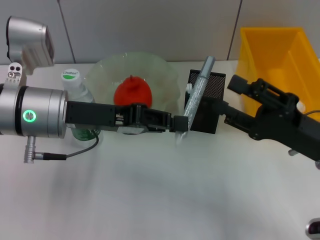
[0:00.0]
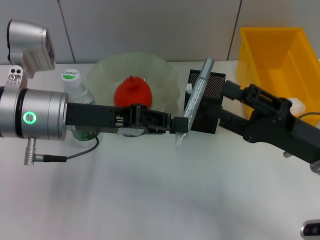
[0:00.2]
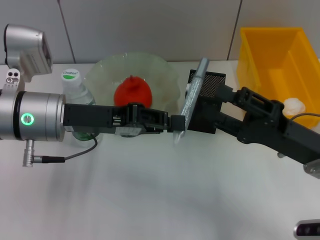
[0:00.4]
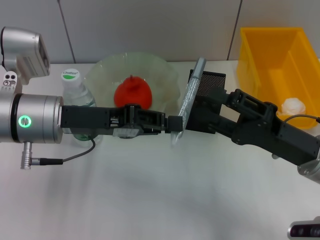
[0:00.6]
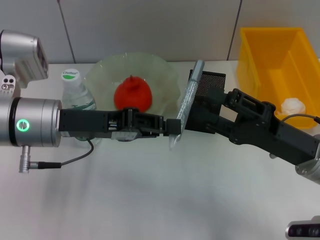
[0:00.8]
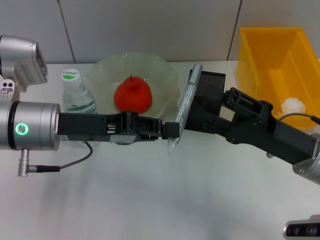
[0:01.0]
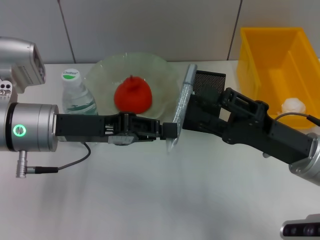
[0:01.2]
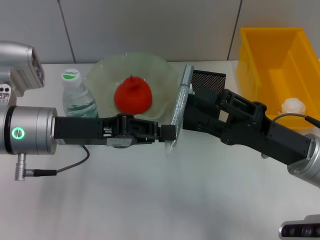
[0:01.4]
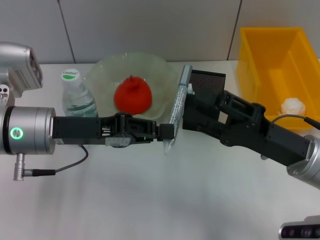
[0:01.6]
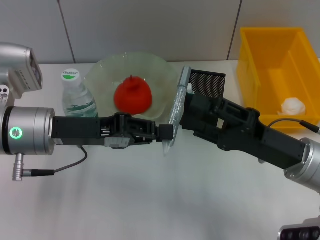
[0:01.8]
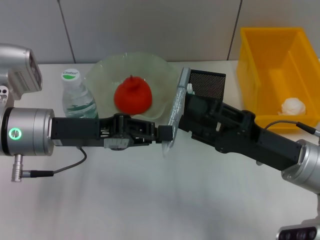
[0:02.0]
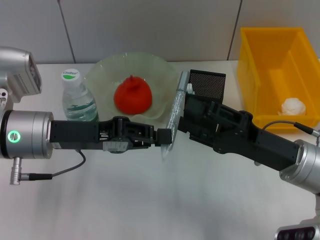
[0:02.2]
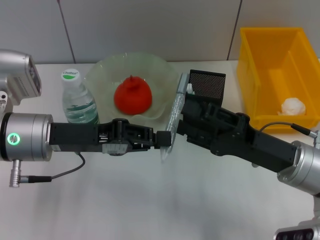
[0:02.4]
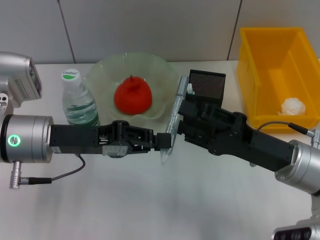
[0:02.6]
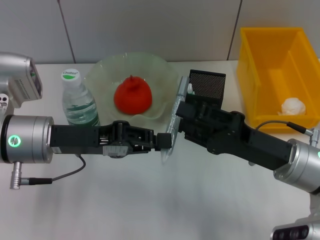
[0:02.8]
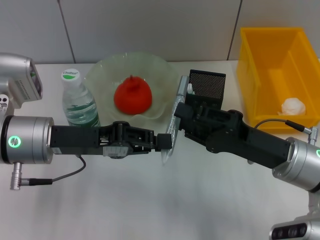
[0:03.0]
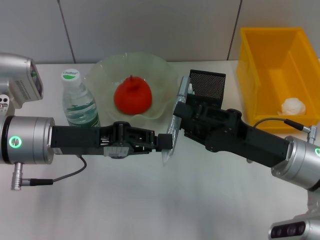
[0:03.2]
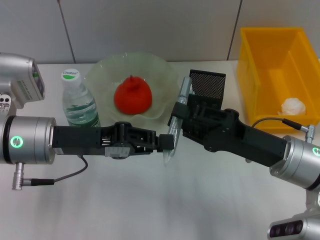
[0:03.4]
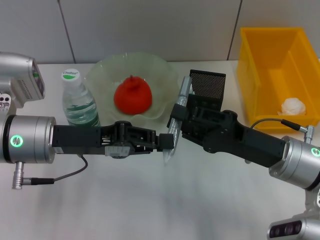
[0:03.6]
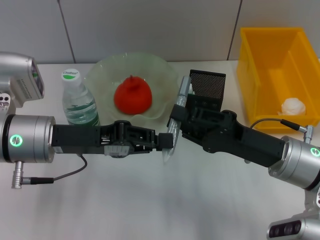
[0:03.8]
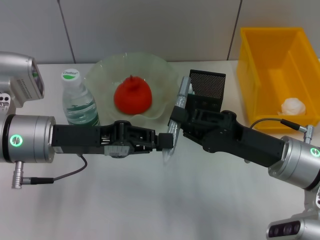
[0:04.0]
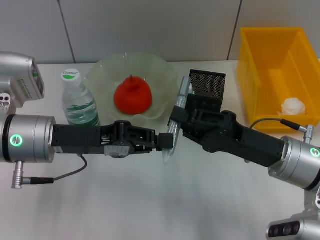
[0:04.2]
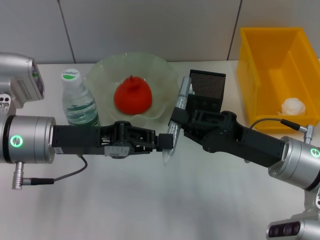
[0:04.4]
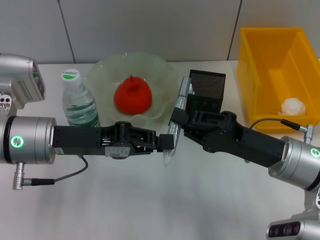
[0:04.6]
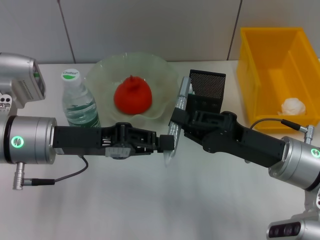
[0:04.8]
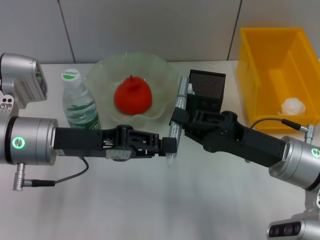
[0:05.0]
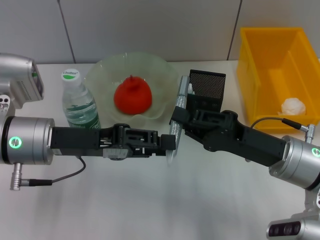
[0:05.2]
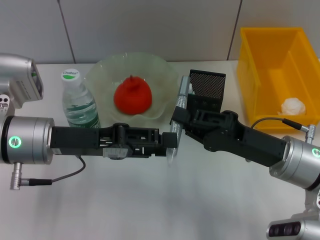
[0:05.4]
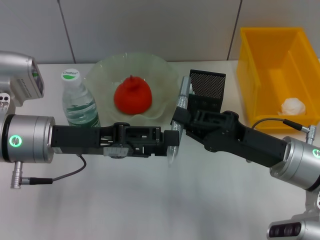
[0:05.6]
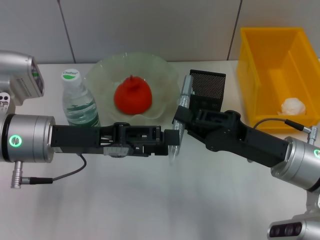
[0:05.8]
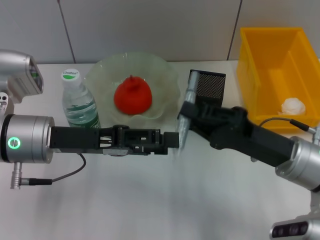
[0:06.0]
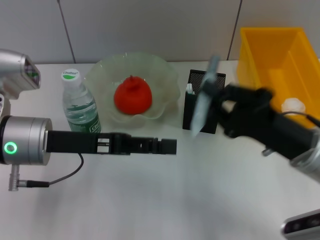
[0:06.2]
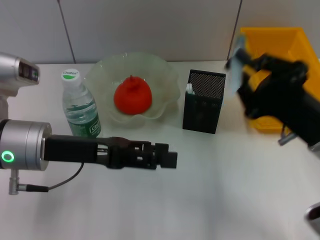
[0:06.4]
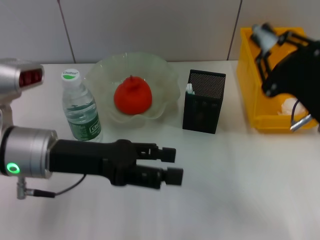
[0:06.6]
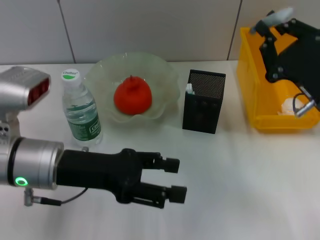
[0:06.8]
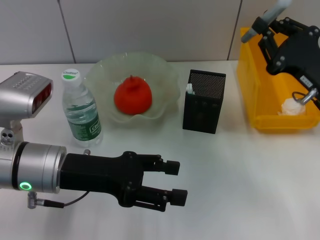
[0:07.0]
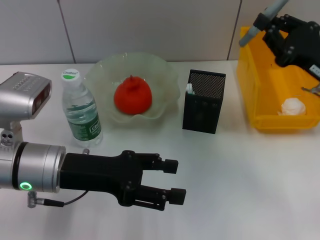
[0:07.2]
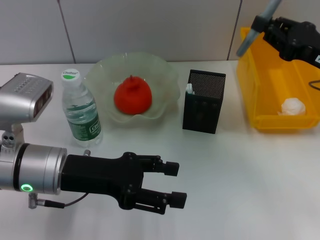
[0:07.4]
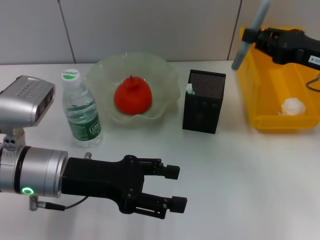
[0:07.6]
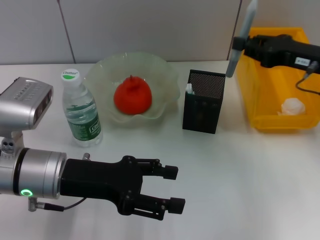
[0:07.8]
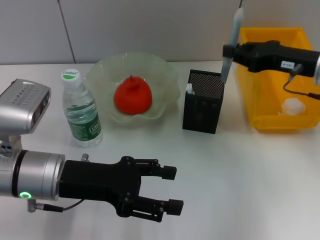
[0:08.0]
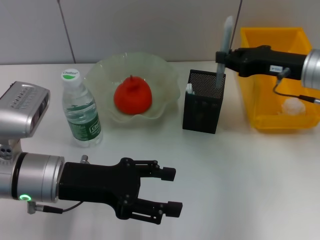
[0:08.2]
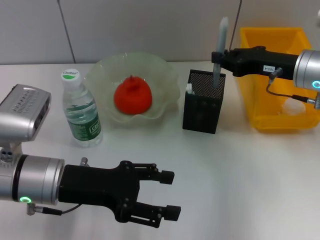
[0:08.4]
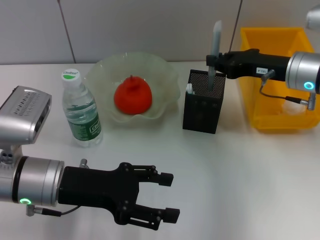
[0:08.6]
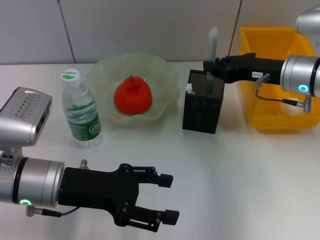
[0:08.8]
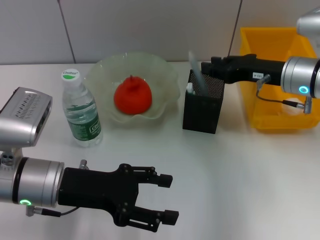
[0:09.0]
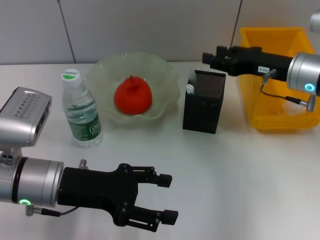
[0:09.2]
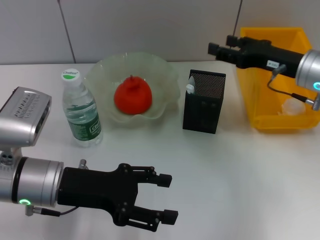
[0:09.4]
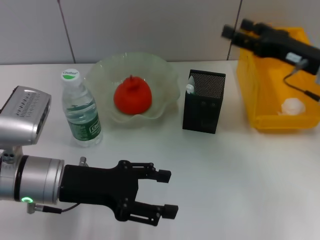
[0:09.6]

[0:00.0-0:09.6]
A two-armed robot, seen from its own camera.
Step, 0.0 to 5.8 s: Pass the gray glue from the left hand to the right hand.
Step, 6.0 to 9.2 s: Place the gray glue into the pen holder with the right hand.
1.6 to 3.2 s: The right gripper closes.
3.2 to 4.8 s: The right gripper closes.
4.8 to 6.4 s: The left gripper opens its fingers.
6.4 to 8.0 s: The right gripper moves forward and upward, about 10 cm.
8.0 to 9.6 s: The right gripper opens.

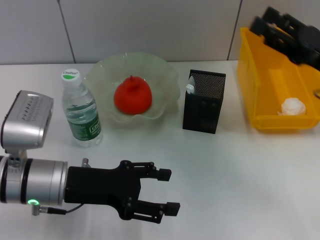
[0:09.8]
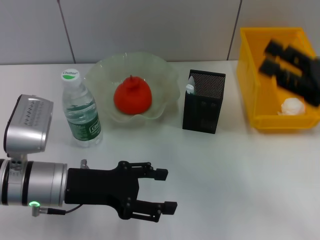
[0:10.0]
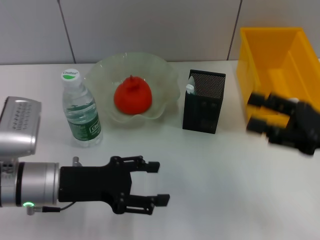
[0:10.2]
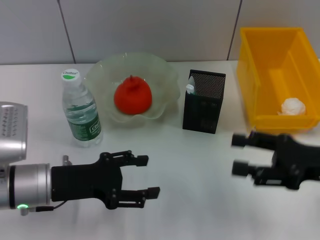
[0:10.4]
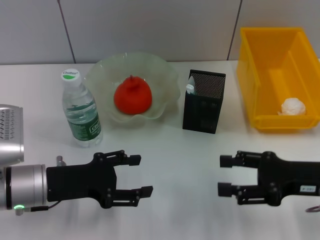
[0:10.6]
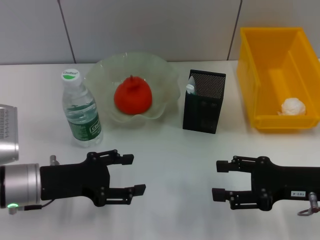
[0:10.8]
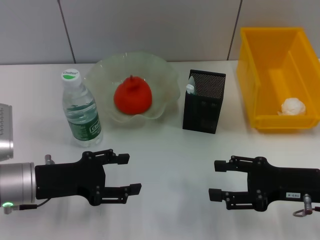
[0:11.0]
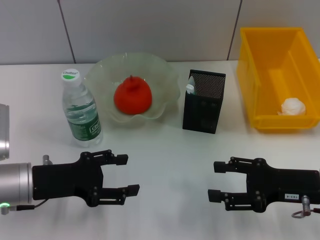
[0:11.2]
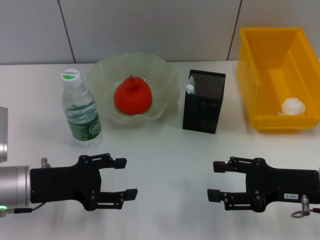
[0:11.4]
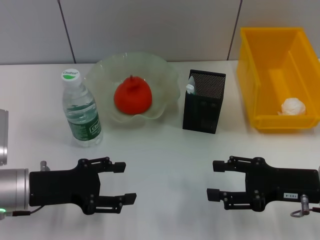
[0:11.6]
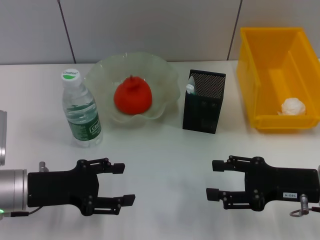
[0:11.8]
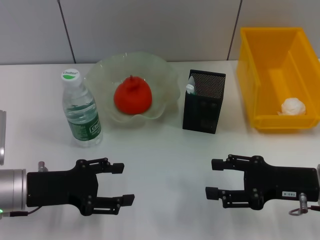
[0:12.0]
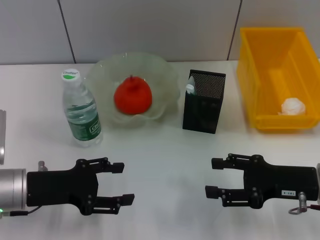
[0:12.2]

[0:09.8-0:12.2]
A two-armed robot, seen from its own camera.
9.8 to 11.0 s: The left gripper ends up about 5 cm from where it was, while the right gripper heads downward and backward, covering approximately 10 cm.
11.0 to 12.2 s: Both grippers stay about where they are.

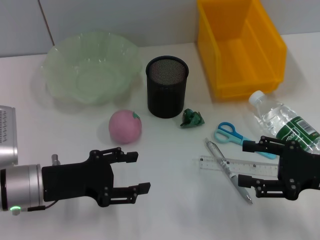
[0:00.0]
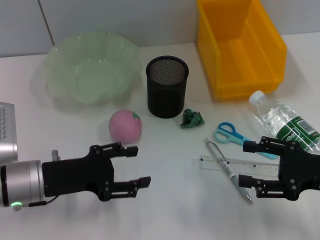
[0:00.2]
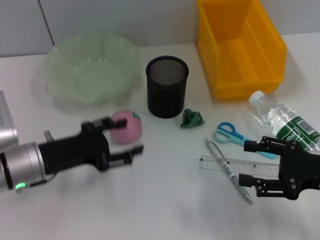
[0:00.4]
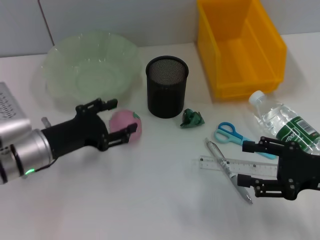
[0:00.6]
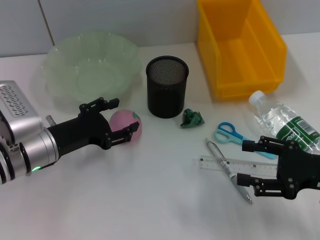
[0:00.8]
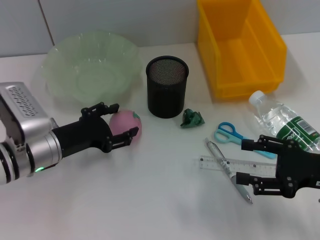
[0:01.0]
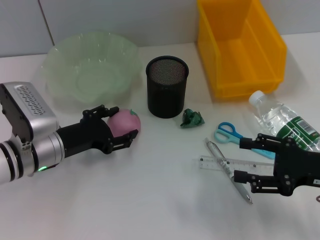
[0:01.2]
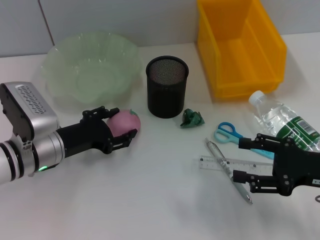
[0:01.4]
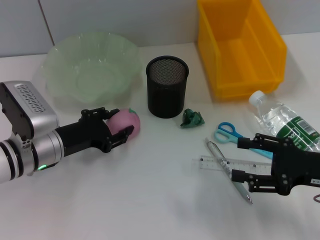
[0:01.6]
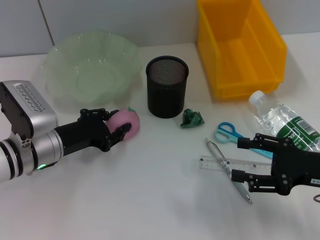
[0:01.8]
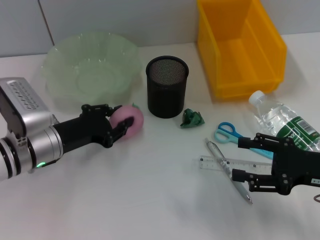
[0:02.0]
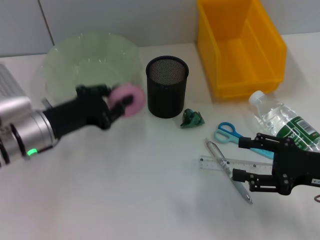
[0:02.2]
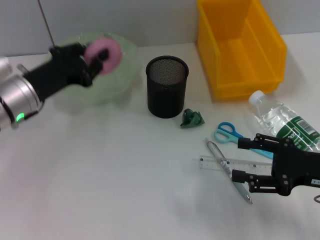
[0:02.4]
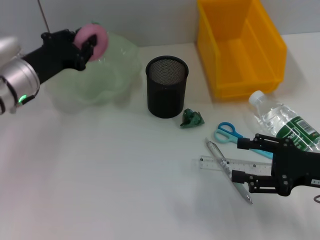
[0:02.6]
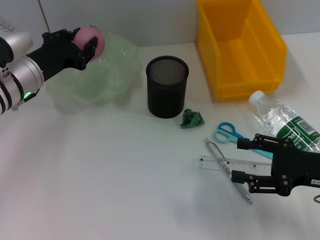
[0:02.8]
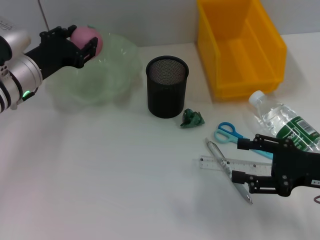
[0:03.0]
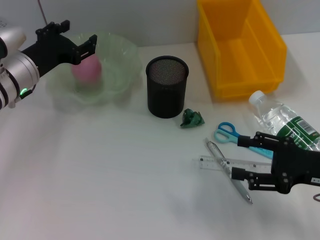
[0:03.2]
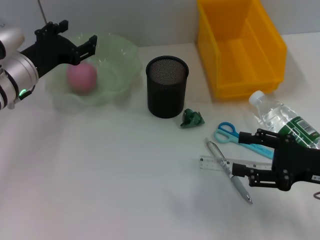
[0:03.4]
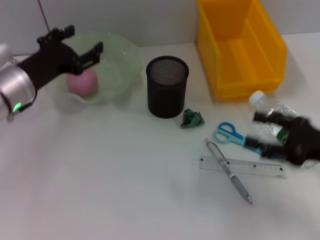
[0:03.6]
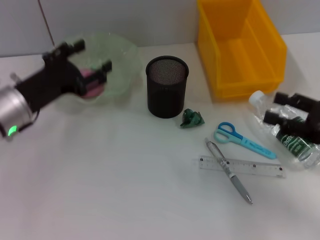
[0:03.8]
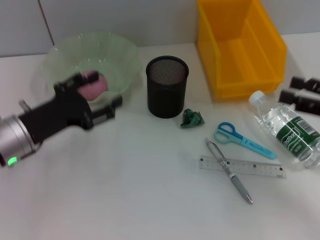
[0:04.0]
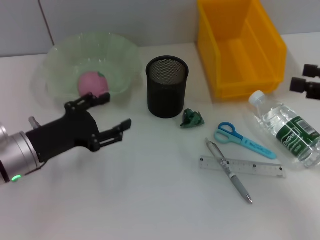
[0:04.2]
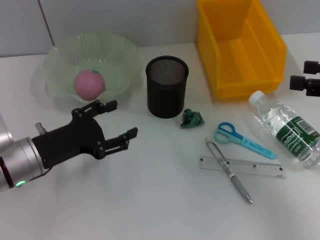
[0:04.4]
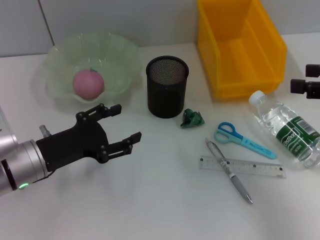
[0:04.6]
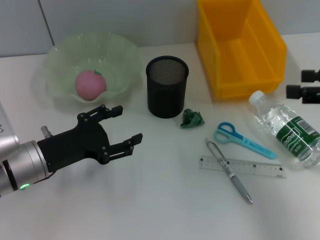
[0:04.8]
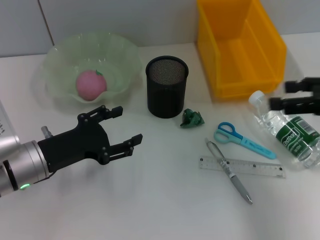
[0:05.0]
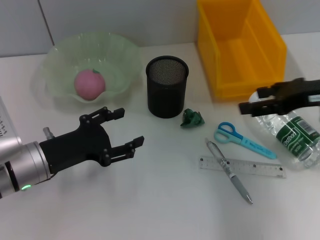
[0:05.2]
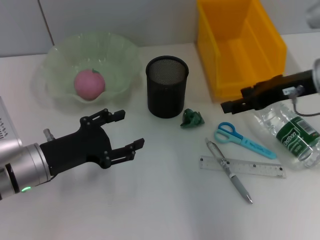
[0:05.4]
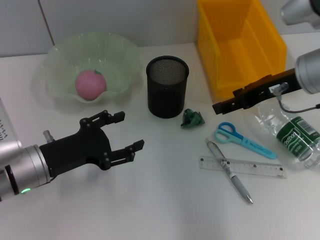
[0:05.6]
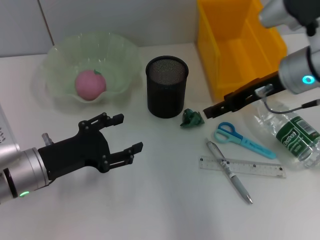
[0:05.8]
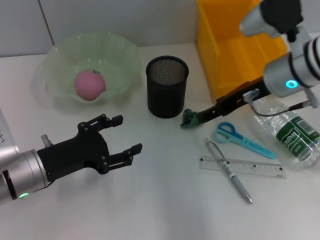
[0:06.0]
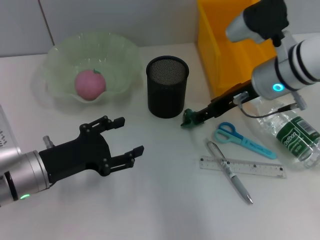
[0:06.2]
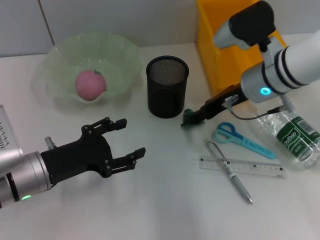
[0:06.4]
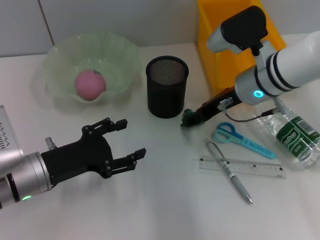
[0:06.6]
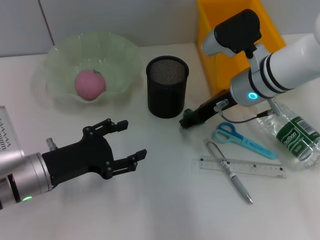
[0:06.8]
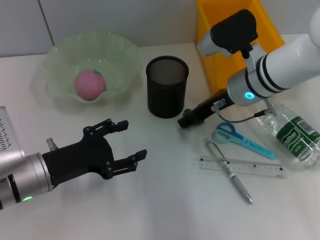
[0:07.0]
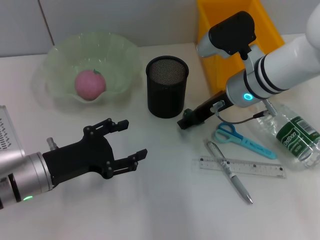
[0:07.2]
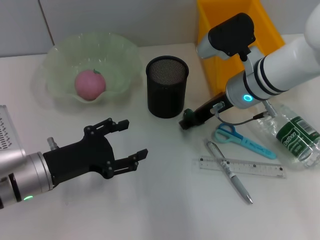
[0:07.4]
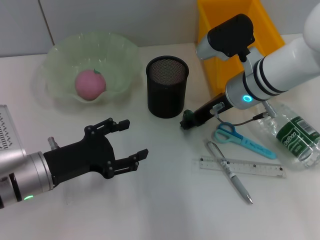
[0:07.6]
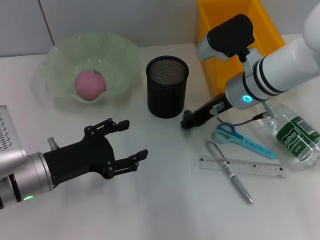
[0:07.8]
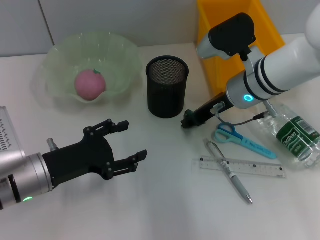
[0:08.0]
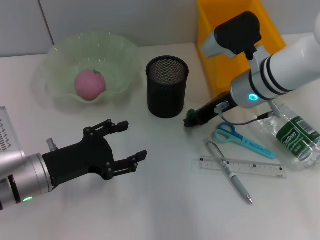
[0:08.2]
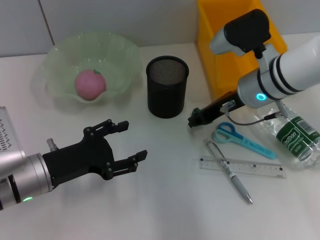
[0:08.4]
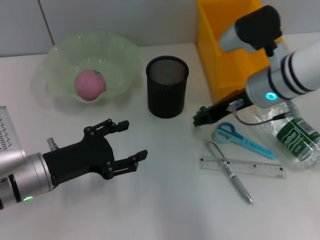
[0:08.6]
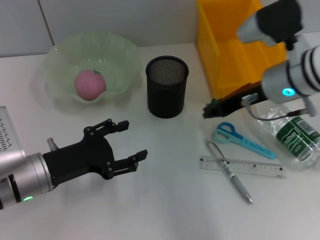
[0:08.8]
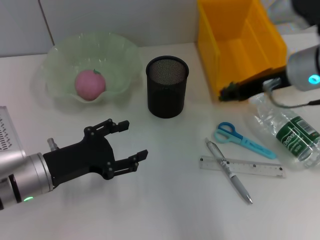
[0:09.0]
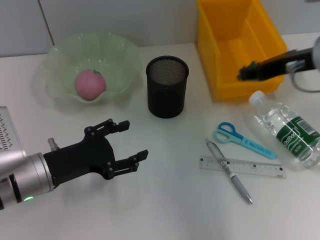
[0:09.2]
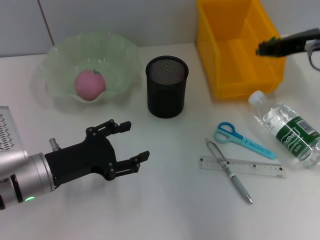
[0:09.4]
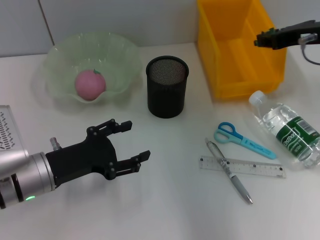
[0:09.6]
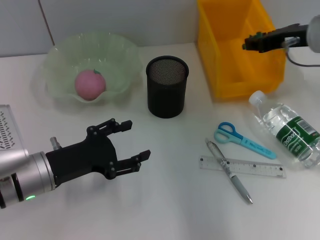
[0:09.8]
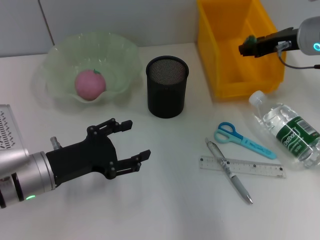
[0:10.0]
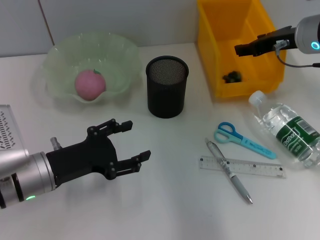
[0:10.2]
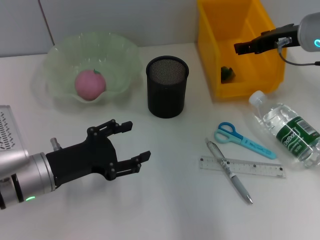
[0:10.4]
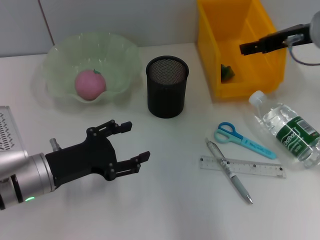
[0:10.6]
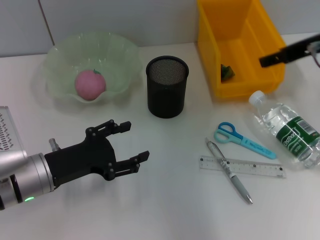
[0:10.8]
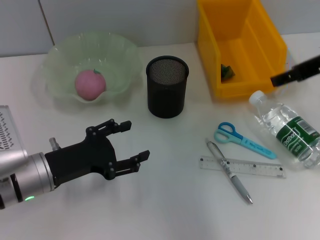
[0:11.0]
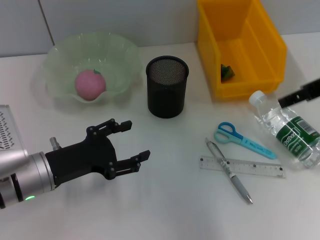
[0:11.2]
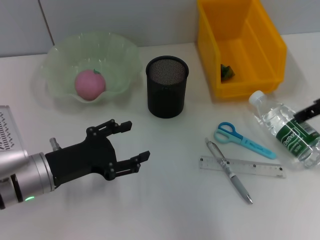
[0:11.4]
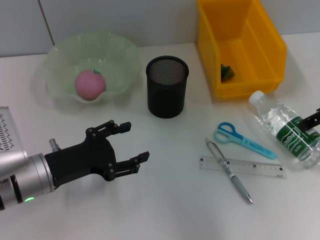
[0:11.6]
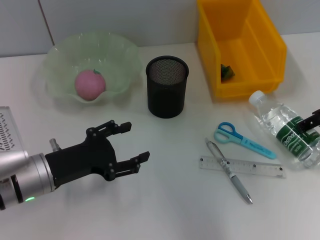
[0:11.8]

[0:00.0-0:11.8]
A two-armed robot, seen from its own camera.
Step, 0.0 to 1.6 s: Grab the peach with the left hand.
Step, 2.0 to 3.4 s: Place the peach into the fruit bowl with the left hand.
Step, 3.8 to 7.8 s: Grab the plastic with the right hand.
Step, 8.2 to 10.4 s: Place the plastic into the trash can with the right hand.
0.0 to 1.4 s: The left gripper is displaced forward by about 5 cm.
1.4 to 3.0 s: The left gripper goes some 10 cm forward and upward, and closes its fingers.
3.0 to 4.4 s: The left gripper goes some 10 cm backward, and opens its fingers. Meanwhile the right gripper heads upward and to the right, covering approximately 15 cm.
4.4 to 6.0 s: The right gripper shifts approximately 20 cm to the left and forward.
6.0 to 7.4 s: The right gripper moves roughly 5 cm.
7.4 to 8.8 s: The right gripper changes place by some 5 cm, and closes.
8.8 to 10.4 s: The right gripper shifts some 5 cm to the right, and opens up.
10.4 to 11.8 s: The right gripper heads backward, covering approximately 10 cm.
